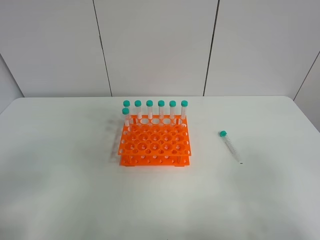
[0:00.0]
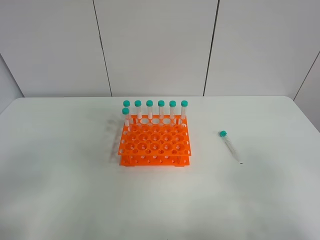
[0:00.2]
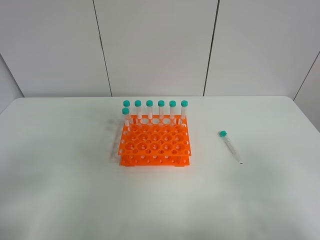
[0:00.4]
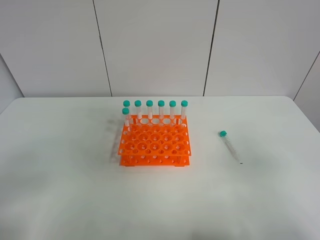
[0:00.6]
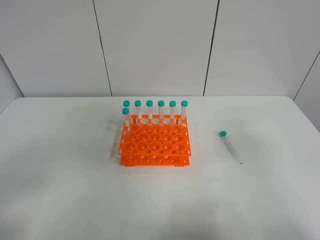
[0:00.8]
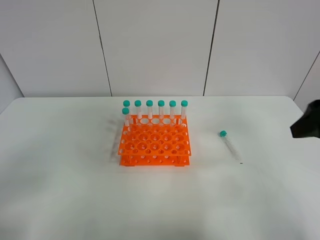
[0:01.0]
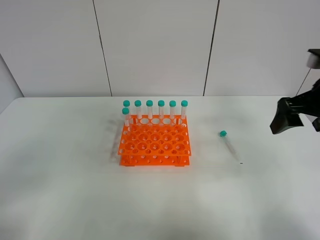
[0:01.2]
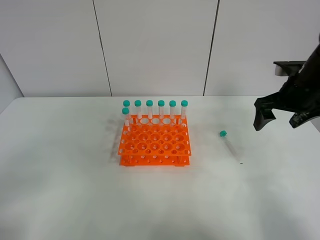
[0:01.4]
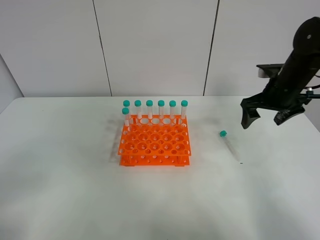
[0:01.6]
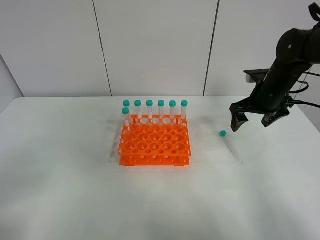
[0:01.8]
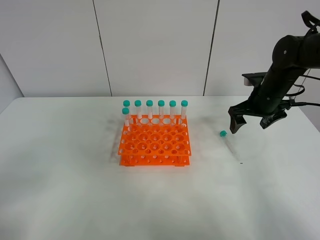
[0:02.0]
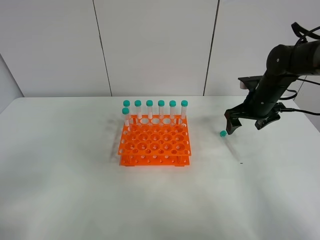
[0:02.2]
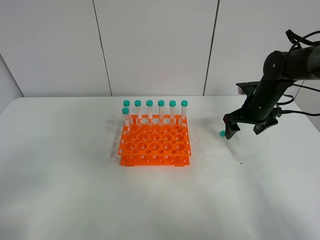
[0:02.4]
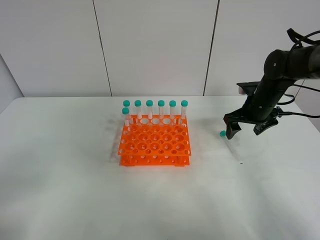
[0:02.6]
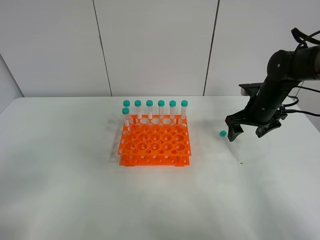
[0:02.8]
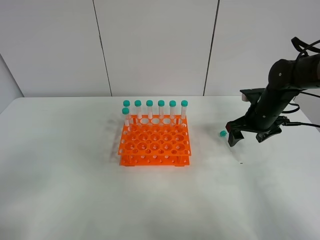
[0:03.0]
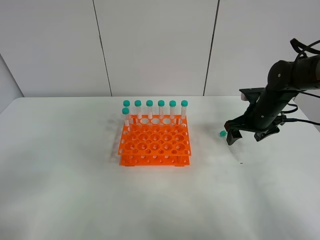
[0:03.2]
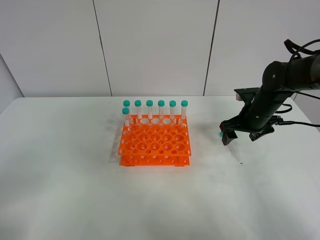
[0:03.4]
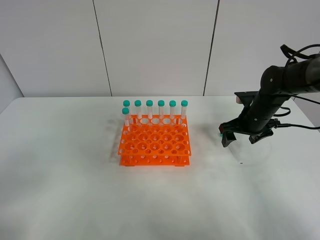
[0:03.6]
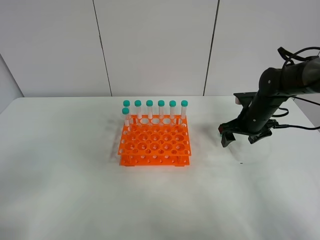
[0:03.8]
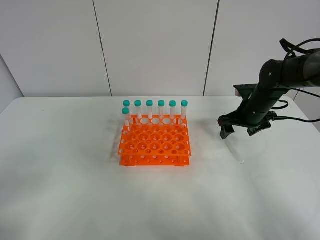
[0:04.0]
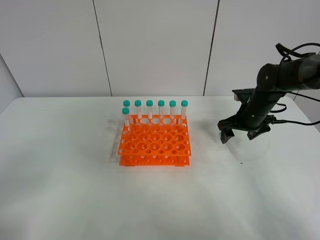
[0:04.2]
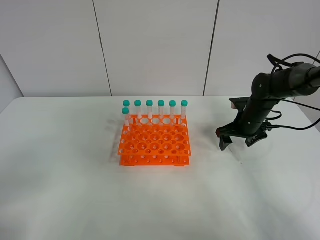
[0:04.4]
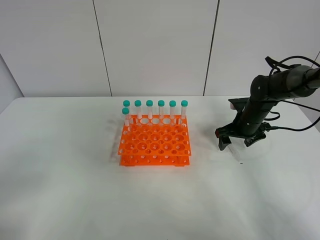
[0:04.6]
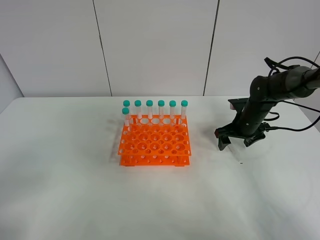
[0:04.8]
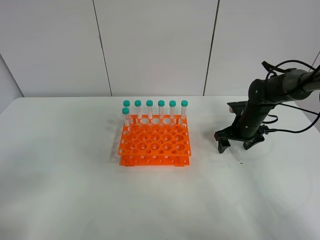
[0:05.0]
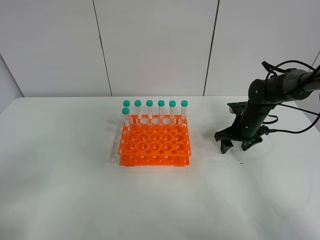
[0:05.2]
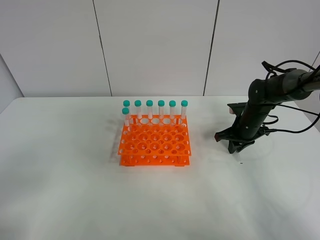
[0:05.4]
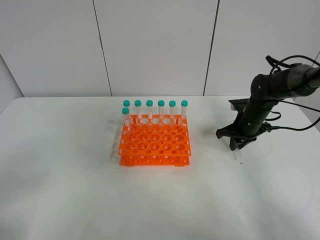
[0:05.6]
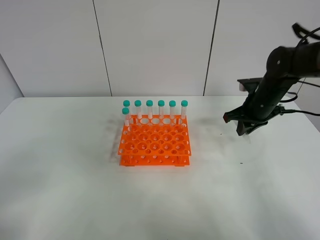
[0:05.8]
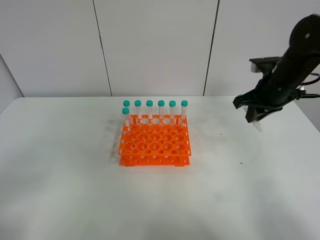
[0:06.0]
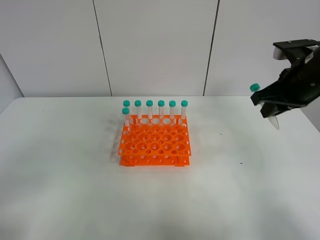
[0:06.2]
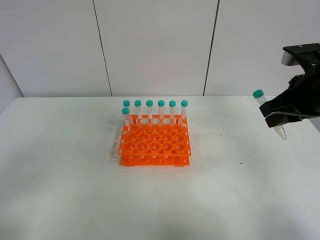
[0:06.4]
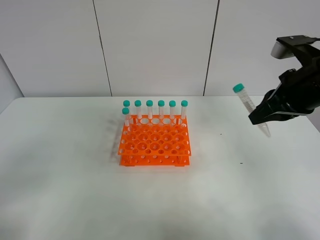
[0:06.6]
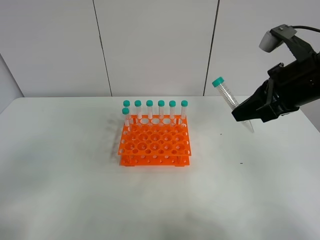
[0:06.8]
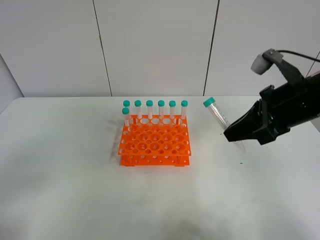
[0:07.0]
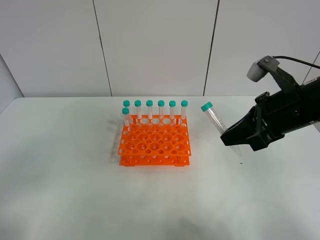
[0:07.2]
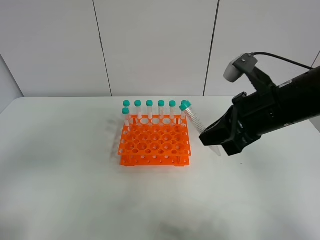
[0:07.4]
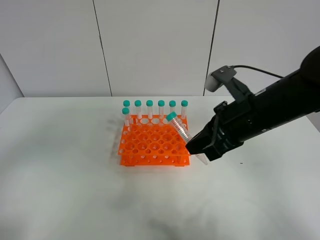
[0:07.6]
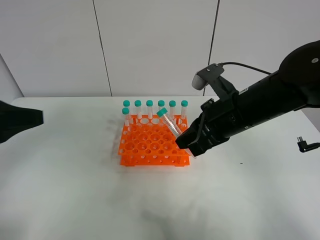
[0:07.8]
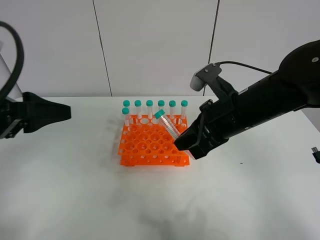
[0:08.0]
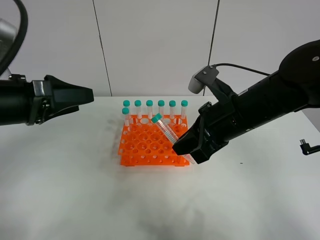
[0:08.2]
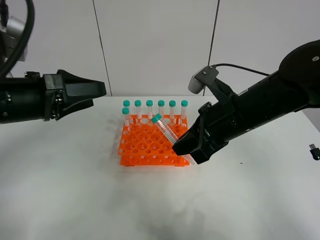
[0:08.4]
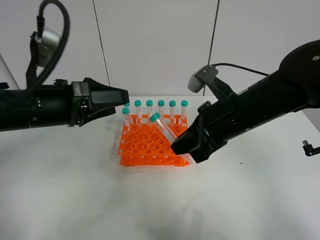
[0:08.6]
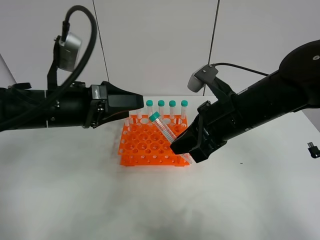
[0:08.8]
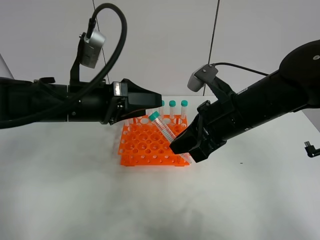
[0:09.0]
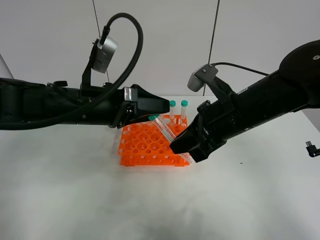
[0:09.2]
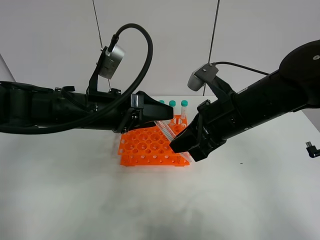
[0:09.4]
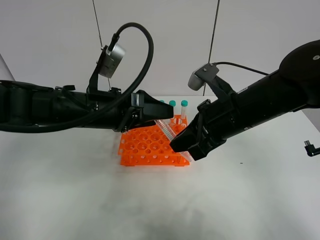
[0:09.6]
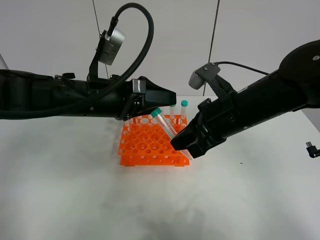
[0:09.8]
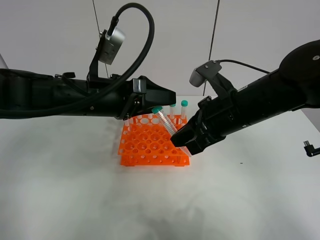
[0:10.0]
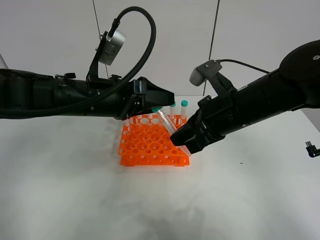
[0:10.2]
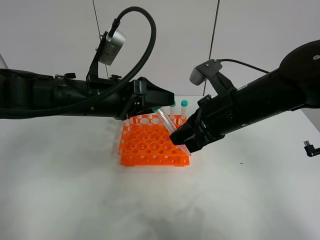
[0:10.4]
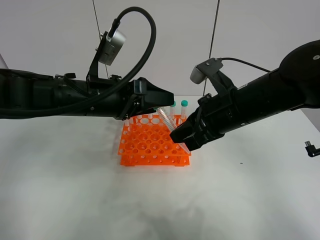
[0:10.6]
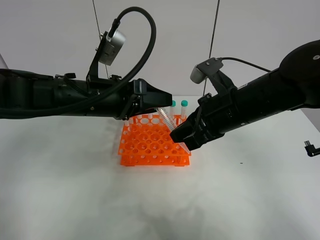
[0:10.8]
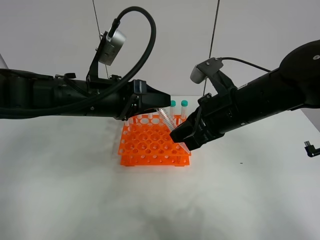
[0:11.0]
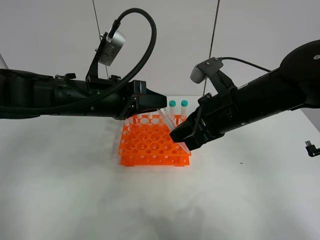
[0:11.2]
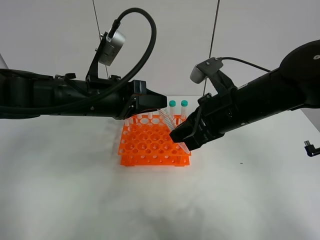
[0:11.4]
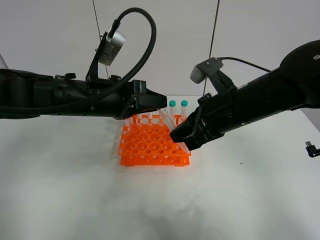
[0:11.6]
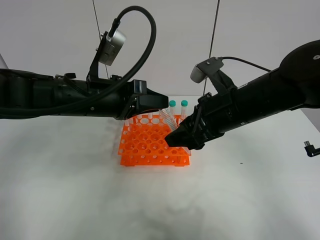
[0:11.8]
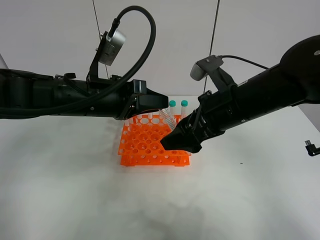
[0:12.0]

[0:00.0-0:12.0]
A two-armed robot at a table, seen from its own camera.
Task of the whole recording: Put the test tube on the table back onto the test tube rack.
Step, 0:00.0 to 0:05.6: Pick up the test tube with the right gripper.
Step, 0:05.8 to 0:12.0: Move the test tube from the right gripper to the left gripper.
0:00.0 to 0:01.6: The right gripper heads forward, covering approximately 35 cm.
0:01.6 to 0:03.0: The right gripper heads downward, covering some 5 cm.
0:03.0 to 0:04.4: The right gripper ends up some 5 cm from where it was.
0:04.4 to 0:06.0: The right gripper is displaced upward by approximately 15 cm, and closes.
0:06.0 to 0:07.6: The right gripper is displaced backward and to the left by approximately 15 cm; the left gripper goes approximately 10 cm forward.
0:07.6 to 0:09.0: The left gripper heads forward, to the right and downward, covering roughly 25 cm.
0:09.0 to 0:10.4: The grippers make only small movements.
0:10.4 to 0:12.0: The left gripper closes. Meanwhile the right gripper opens.

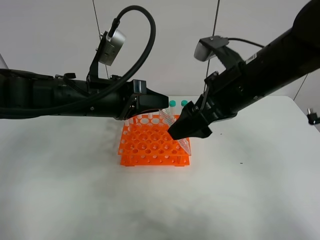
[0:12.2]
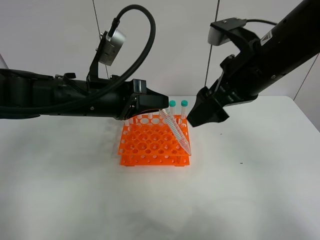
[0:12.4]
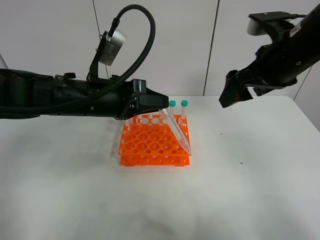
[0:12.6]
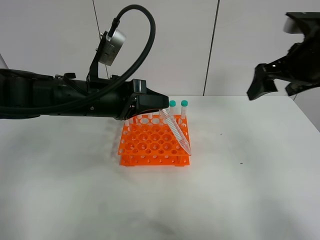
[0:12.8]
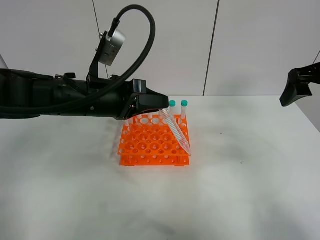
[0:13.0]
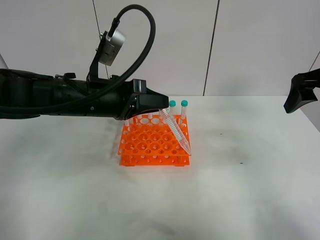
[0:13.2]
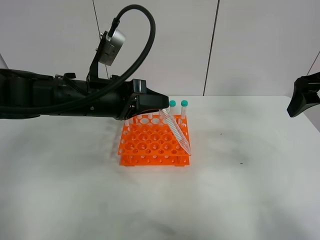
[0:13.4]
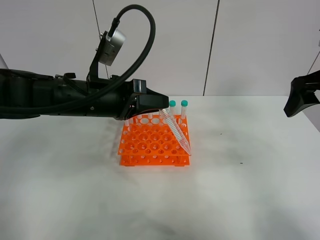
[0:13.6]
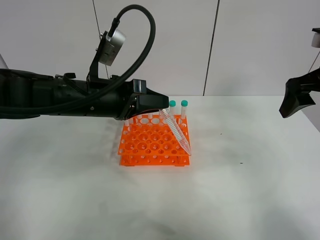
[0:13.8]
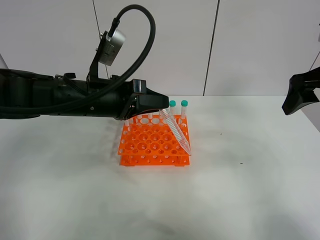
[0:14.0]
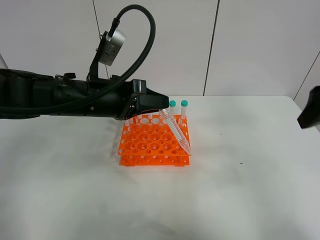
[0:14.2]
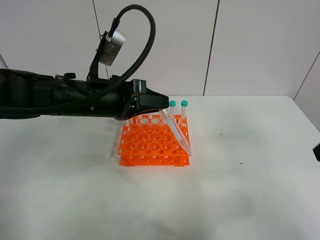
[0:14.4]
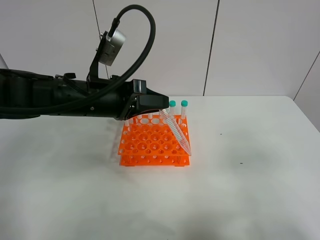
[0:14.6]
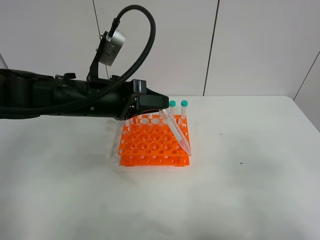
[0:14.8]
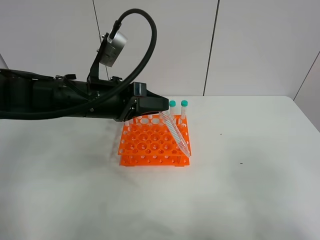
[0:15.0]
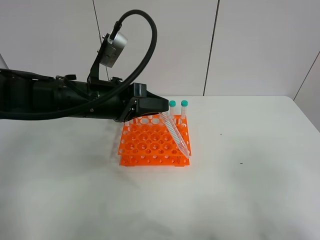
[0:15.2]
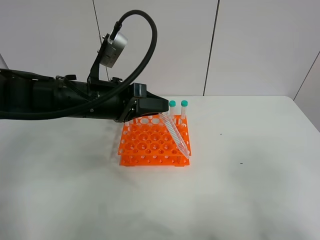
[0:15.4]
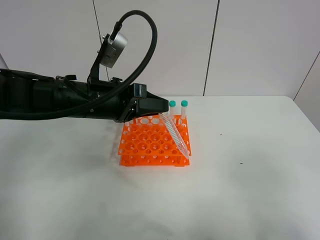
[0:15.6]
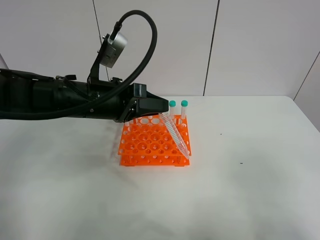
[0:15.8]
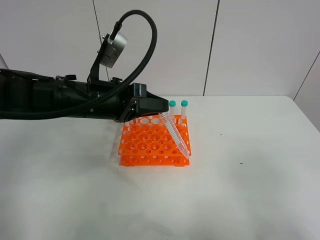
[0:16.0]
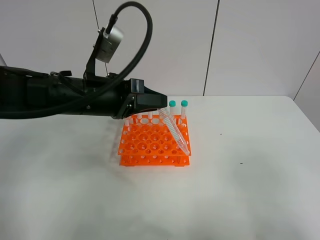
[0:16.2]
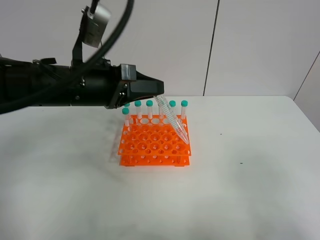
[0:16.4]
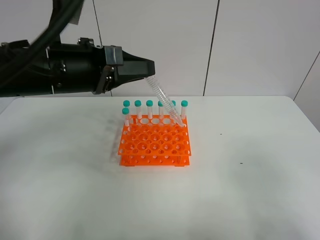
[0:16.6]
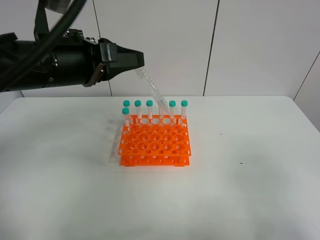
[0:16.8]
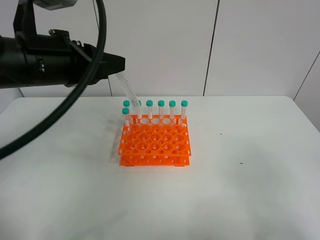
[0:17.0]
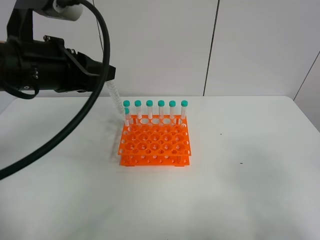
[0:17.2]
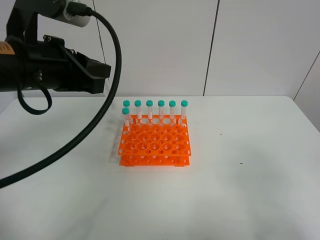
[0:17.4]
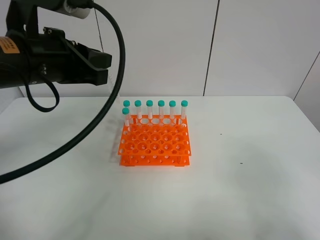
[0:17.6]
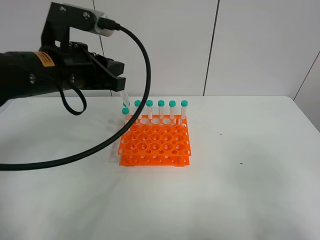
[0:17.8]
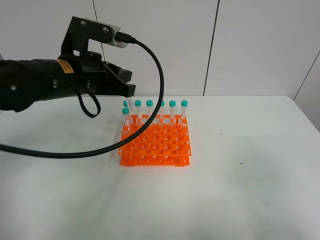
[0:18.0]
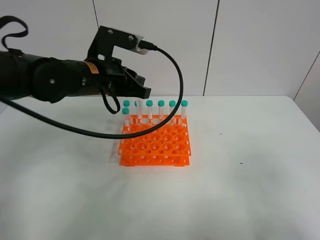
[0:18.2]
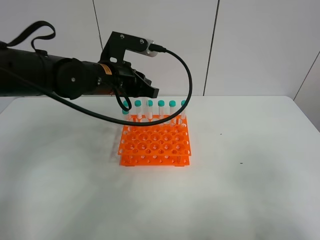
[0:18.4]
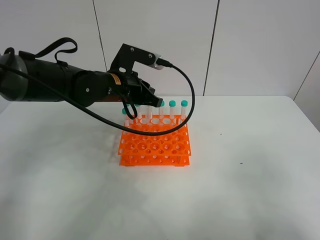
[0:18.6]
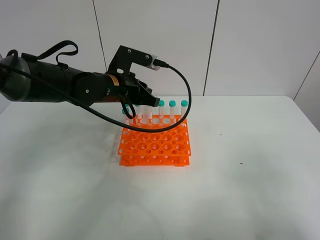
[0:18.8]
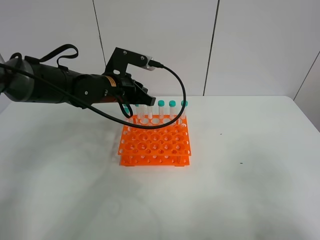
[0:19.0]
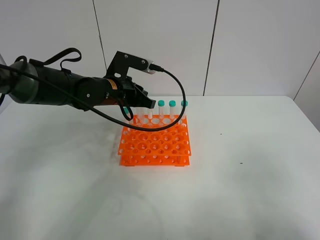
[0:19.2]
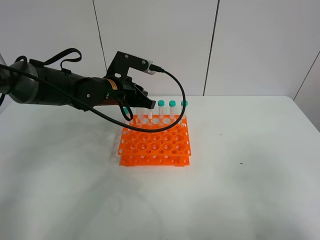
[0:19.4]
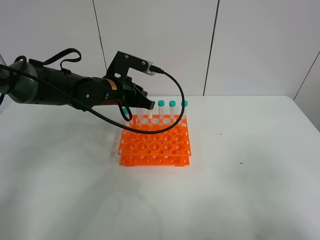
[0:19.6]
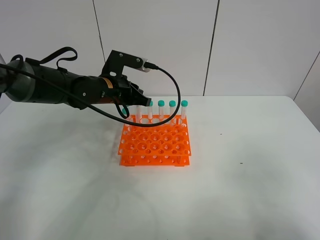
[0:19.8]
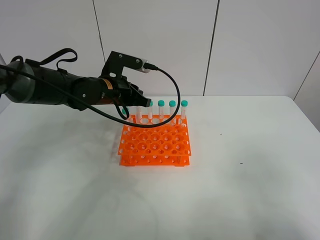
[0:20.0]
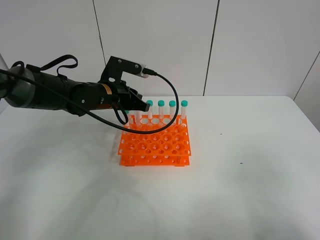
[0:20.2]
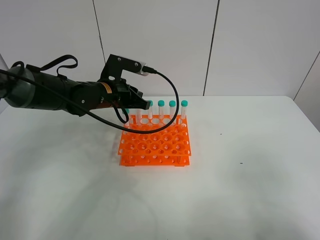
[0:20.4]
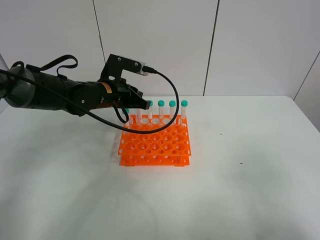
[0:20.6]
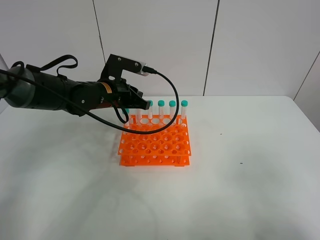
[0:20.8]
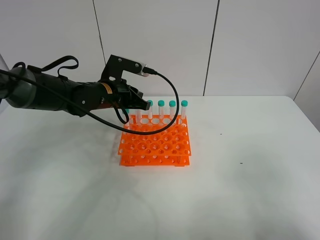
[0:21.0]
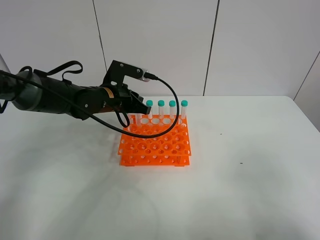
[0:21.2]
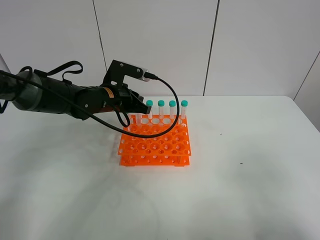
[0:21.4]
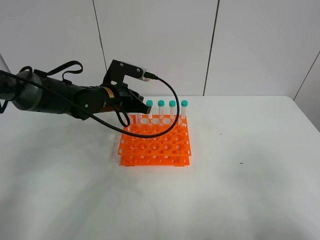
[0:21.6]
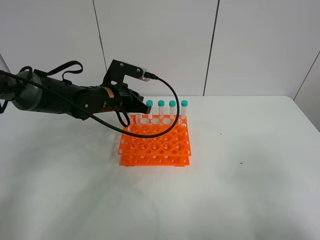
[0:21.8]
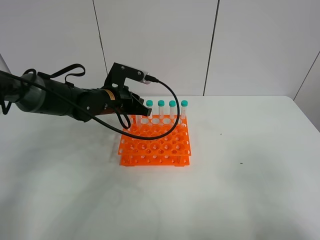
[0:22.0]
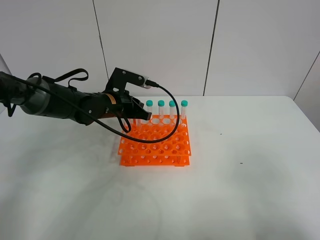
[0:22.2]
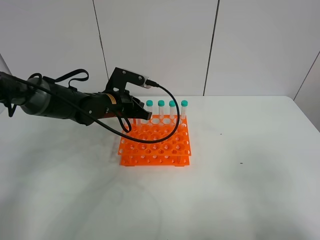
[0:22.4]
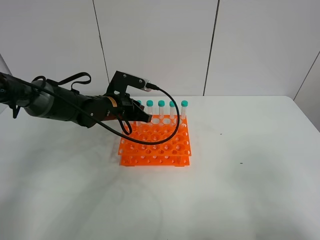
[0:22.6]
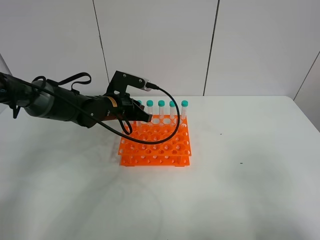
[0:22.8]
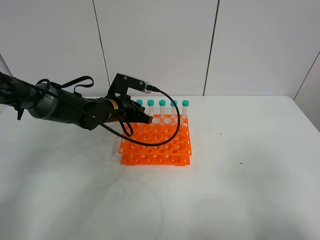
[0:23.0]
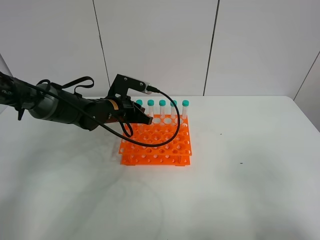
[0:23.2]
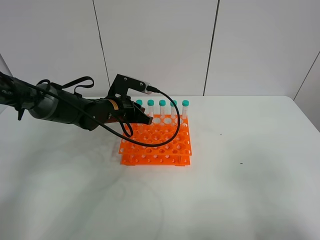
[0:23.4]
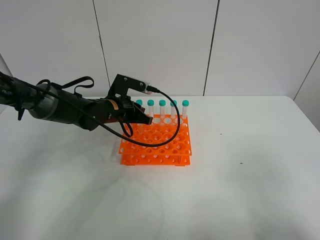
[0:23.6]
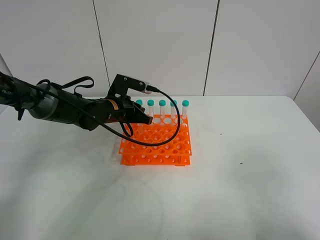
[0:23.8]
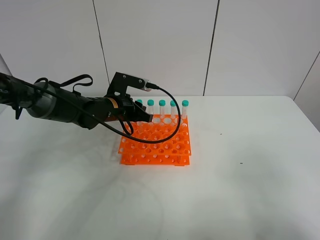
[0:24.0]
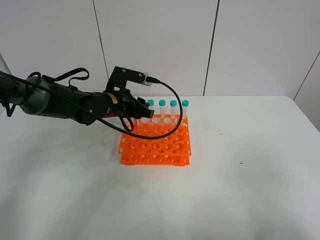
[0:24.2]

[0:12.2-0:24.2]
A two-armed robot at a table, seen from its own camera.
Task of the whole recording: Put the test tube on the table back onto the test tube rack.
Step, 0:12.2 to 0:24.2: Place the test tube on the test tube rack with the left gripper.
0:12.2 to 0:13.8: The right gripper shifts roughly 15 cm to the right.
0:13.8 to 0:15.2: The right gripper moves backward, approximately 25 cm.
0:15.2 to 0:16.6: The left gripper moves upward, roughly 5 cm.
0:16.6 to 0:18.2: The left gripper goes approximately 10 cm forward.
0:18.2 to 0:19.8: The left gripper is displaced downward and forward by approximately 10 cm.
0:19.8 to 0:22.6: The grippers move only a little.
0:22.6 to 0:24.2: The left gripper opens its fingers.
